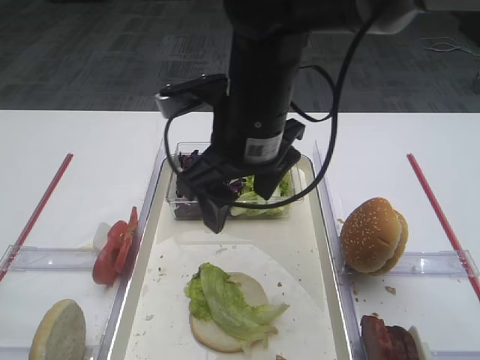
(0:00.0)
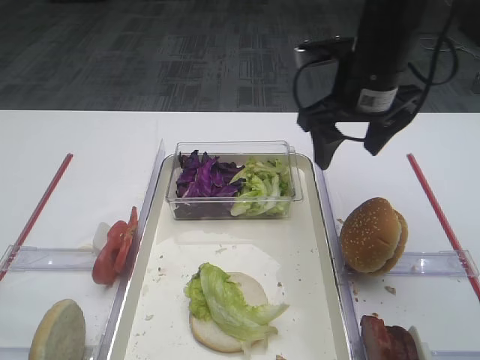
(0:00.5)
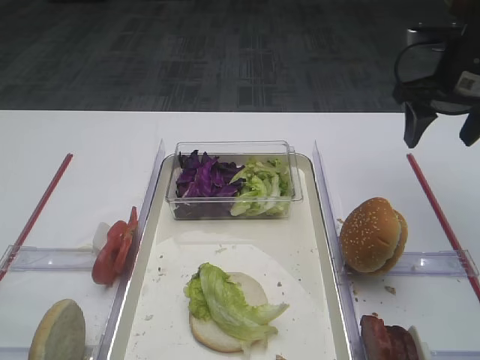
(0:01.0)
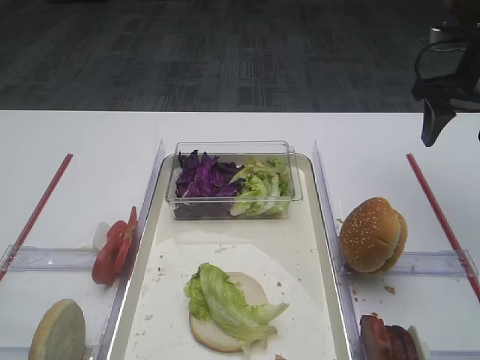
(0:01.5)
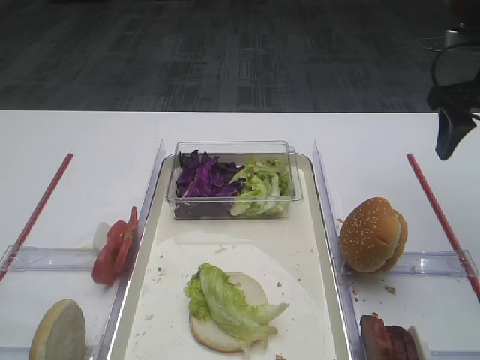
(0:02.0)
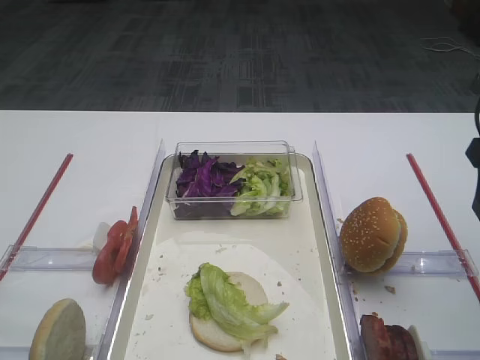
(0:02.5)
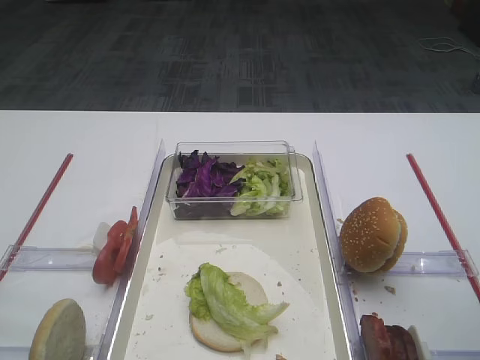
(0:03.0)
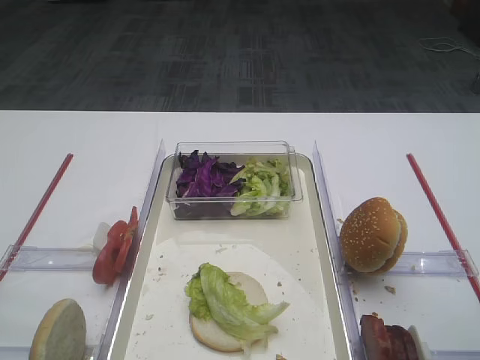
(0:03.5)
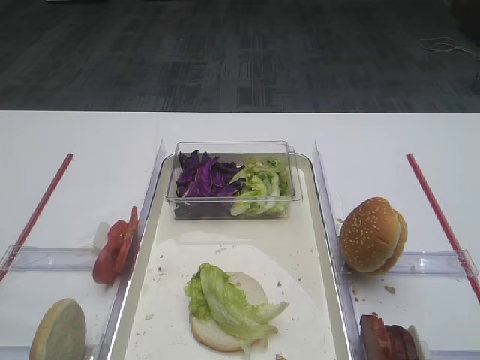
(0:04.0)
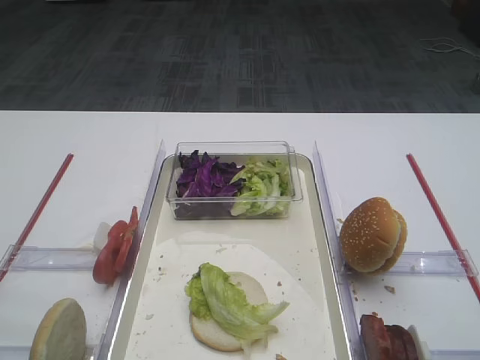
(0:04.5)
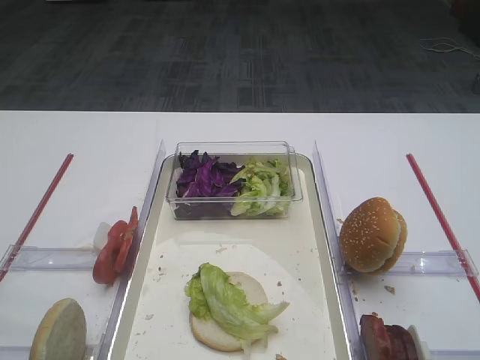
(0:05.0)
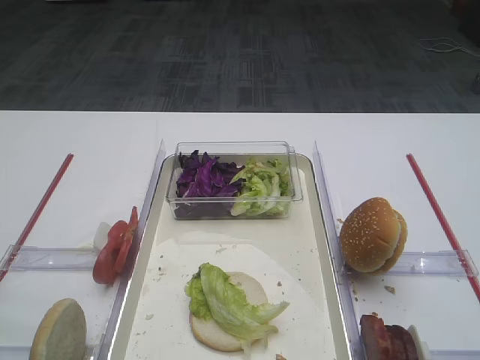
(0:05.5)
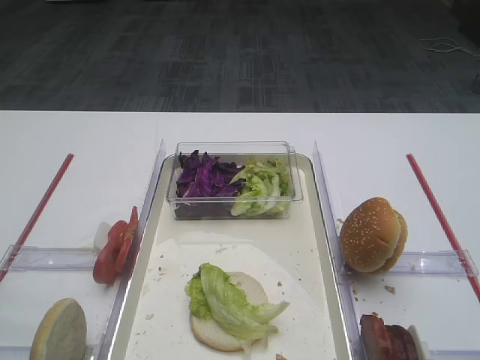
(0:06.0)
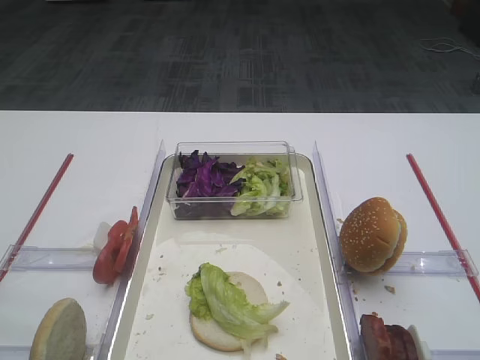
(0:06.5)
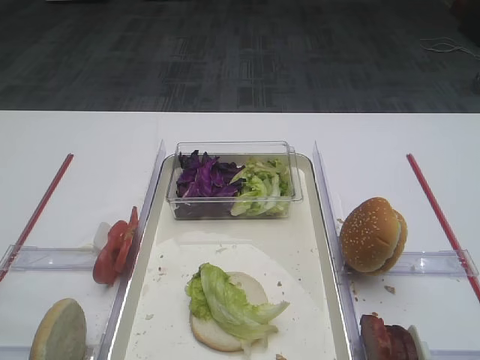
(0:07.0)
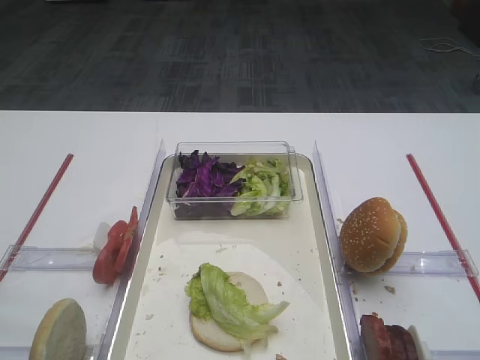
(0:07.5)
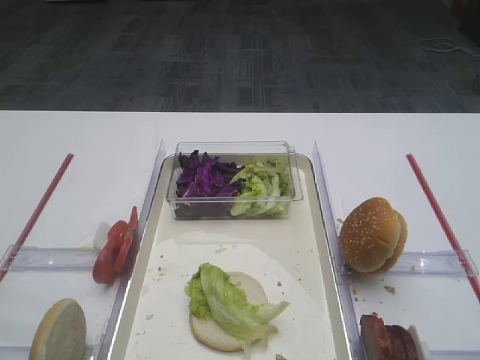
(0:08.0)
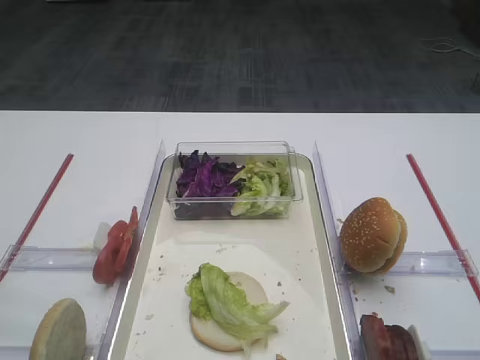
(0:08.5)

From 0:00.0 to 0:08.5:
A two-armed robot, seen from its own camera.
From 0:00.0 to 0:02.0: The right gripper goes about 30 cm to the right.
From 0:02.0 to 0:04.0: The right gripper goes about 30 cm backward.
From 0:06.5 to 0:08.5: The two grippers keep their place.

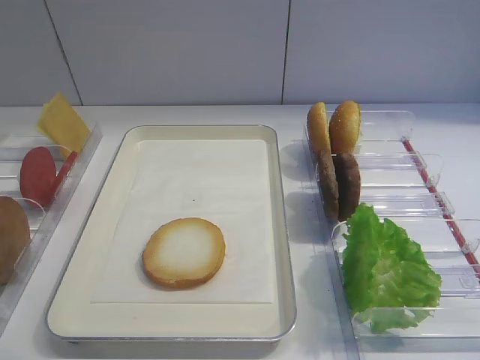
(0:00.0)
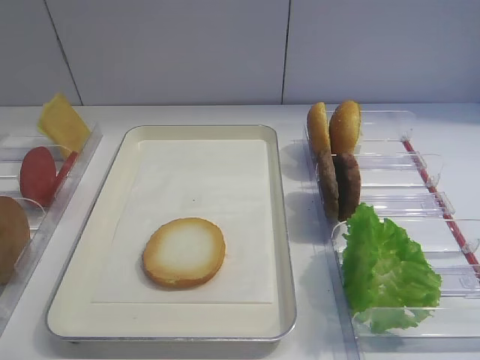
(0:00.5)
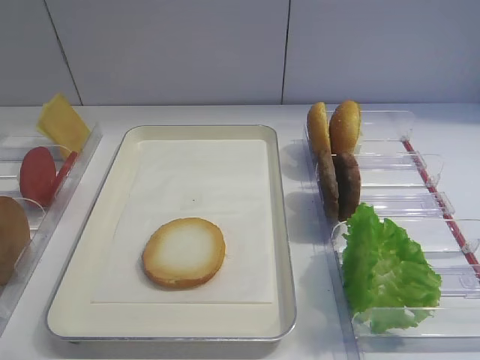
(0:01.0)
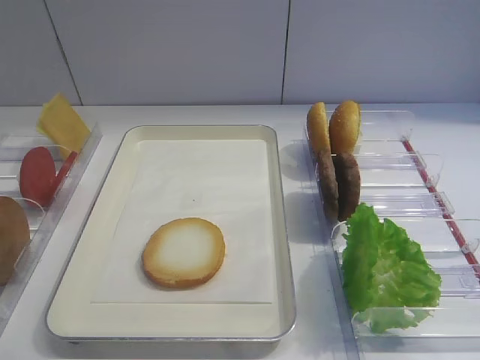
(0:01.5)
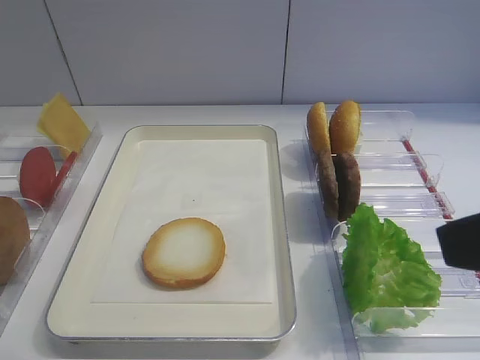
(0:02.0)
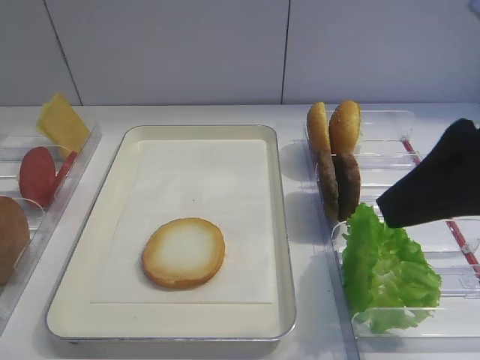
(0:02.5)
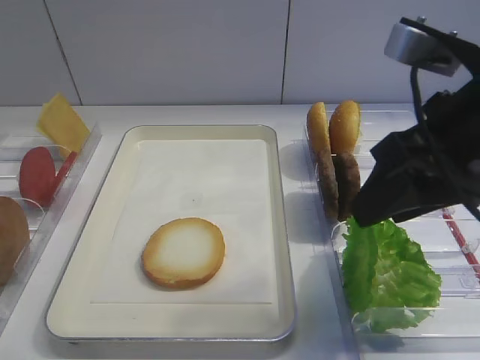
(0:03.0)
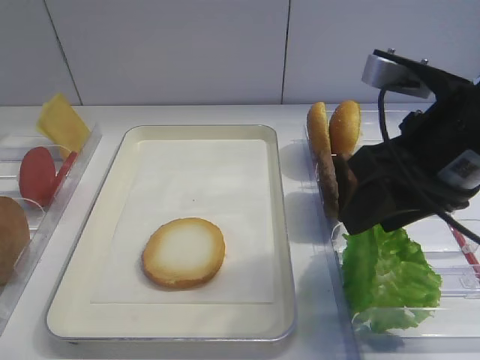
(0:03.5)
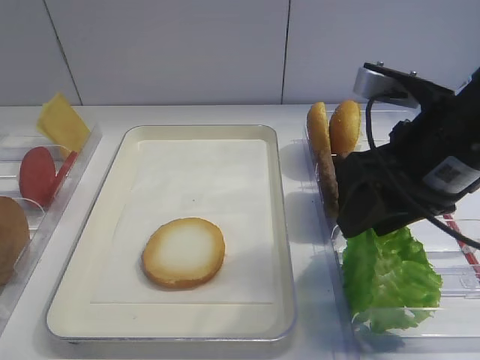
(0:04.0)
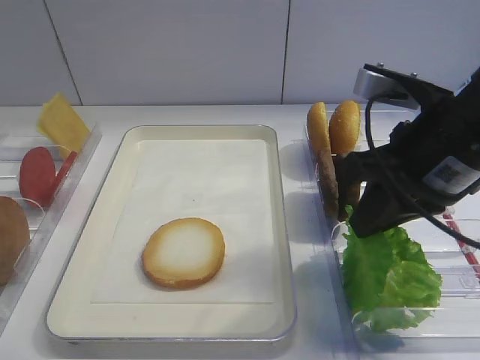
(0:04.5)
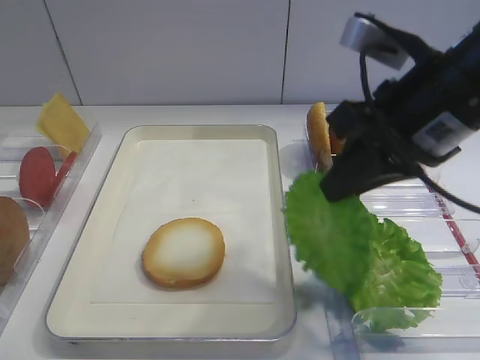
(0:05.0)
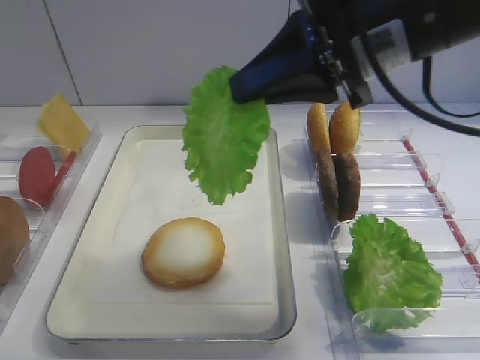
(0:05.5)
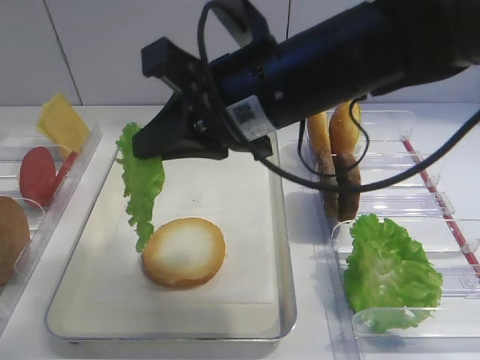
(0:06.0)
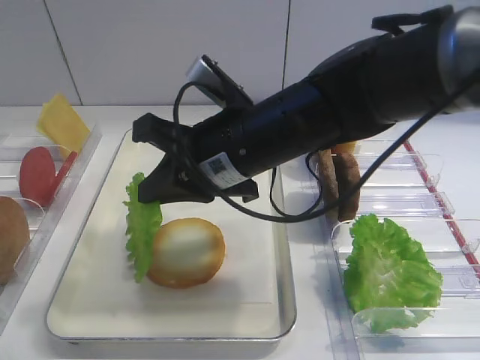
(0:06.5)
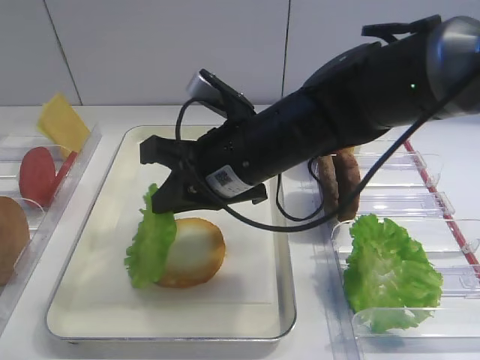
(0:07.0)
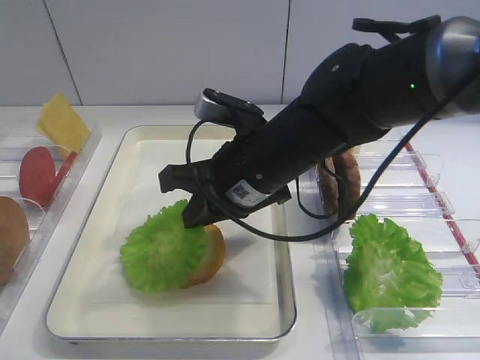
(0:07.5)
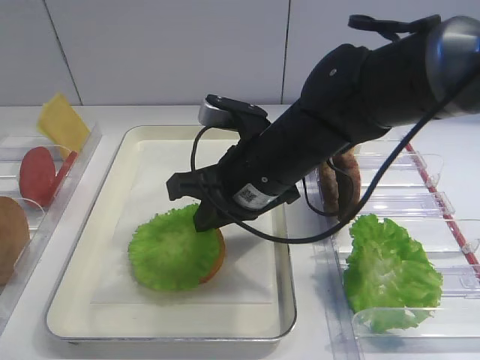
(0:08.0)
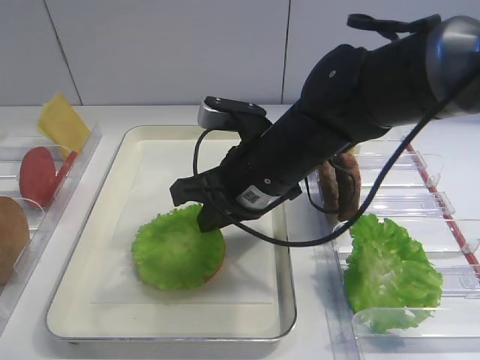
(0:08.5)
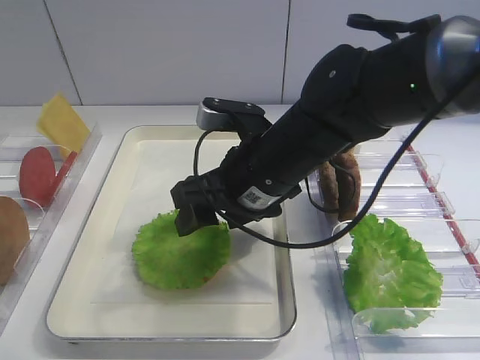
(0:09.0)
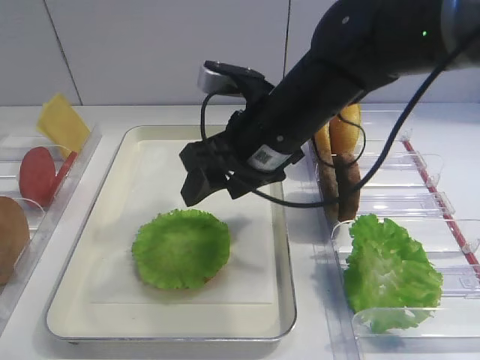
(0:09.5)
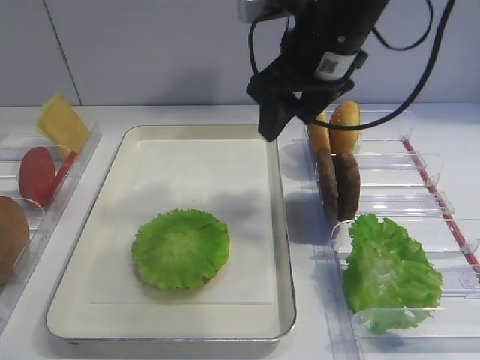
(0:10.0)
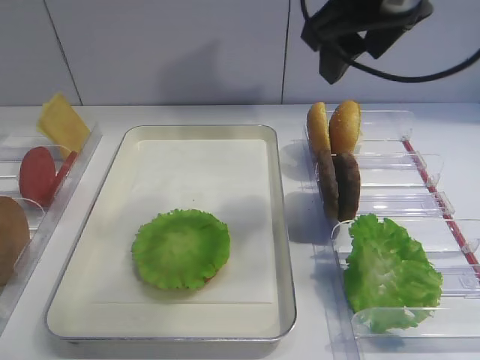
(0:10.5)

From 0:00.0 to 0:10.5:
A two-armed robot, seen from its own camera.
Step, from 0:00.0 to 0:04.5: Pick up the lettuce leaf with the right gripper.
Step, from 0:05.0 to 0:09.0: Place the lettuce leaf on the bread slice with the right gripper.
From 0:02.0 to 0:04.0: The right gripper goes roughly 15 cm forward and downward.
From 0:04.0 to 0:06.5: The right gripper moves to the left, about 15 cm, and closes its fingers.
From 0:08.5 to 0:10.5: The right gripper moves upward and to the right, roughly 20 cm, and opens its fingers.

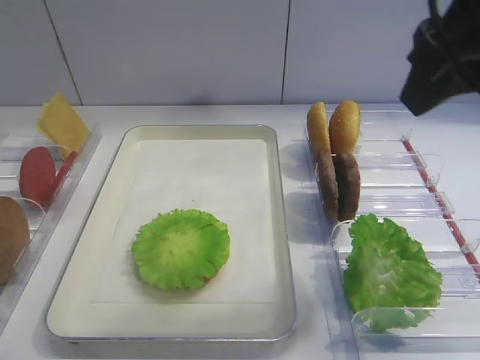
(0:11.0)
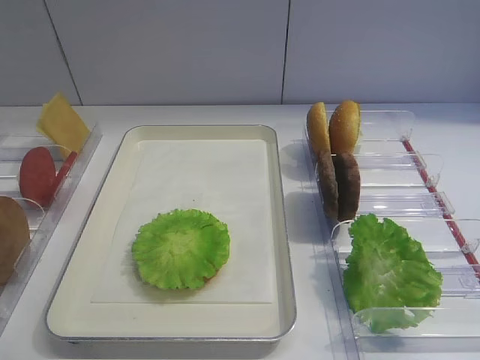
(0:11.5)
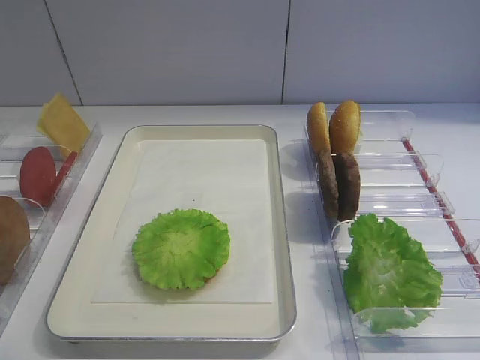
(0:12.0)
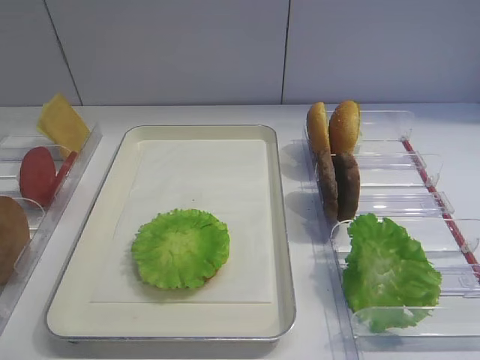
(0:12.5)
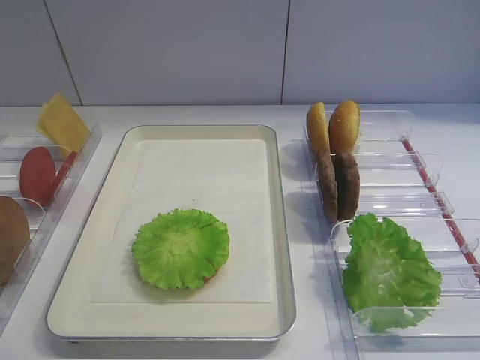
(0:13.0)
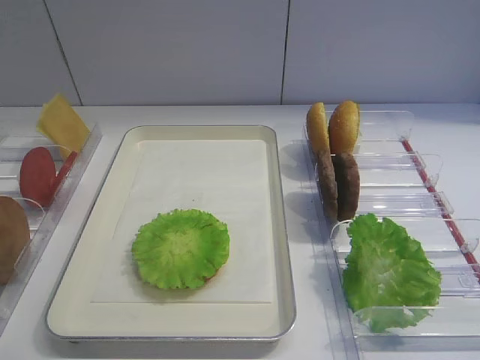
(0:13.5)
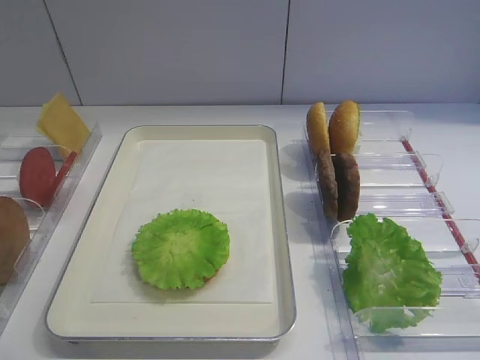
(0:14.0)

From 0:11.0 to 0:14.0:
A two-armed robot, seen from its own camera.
From 0:11.0 to 0:12.5: The right gripper goes about 25 cm backward, downward and to the right.

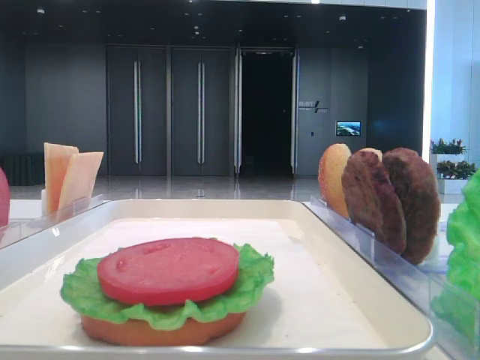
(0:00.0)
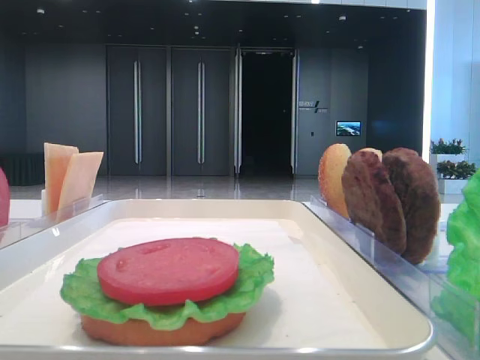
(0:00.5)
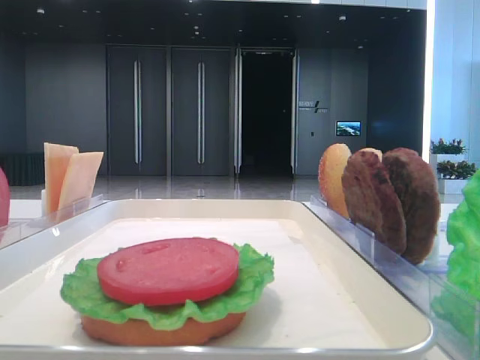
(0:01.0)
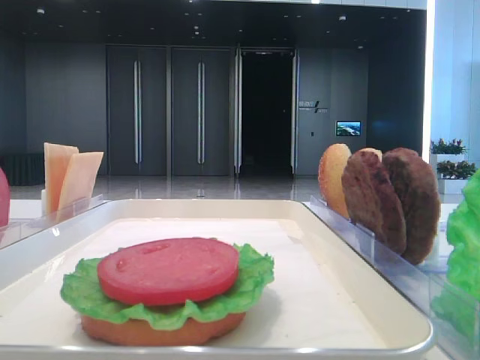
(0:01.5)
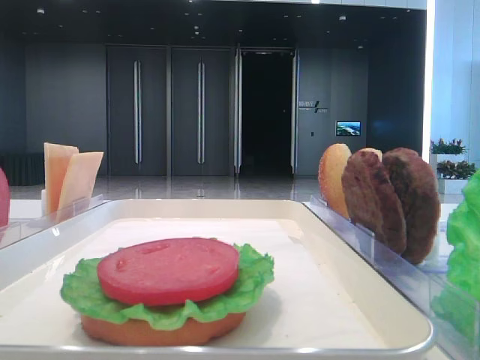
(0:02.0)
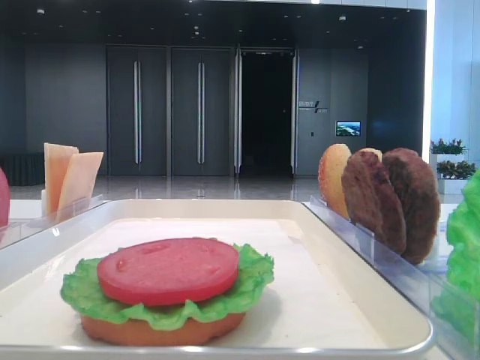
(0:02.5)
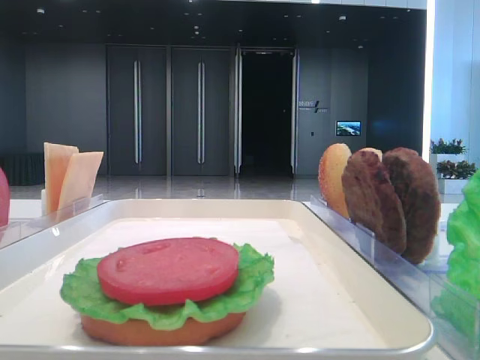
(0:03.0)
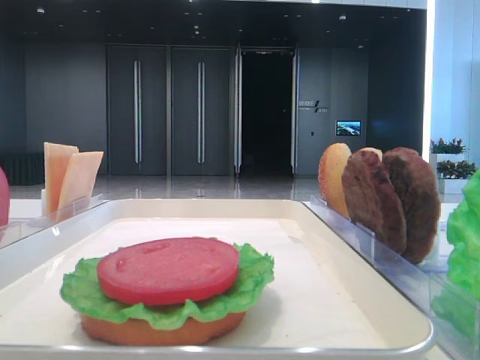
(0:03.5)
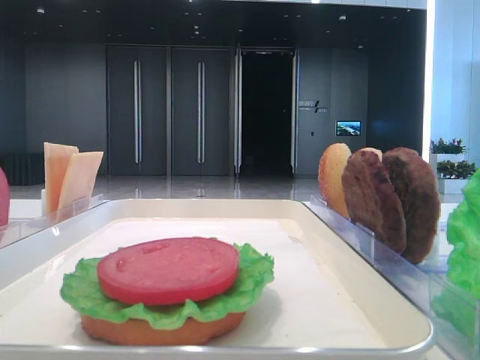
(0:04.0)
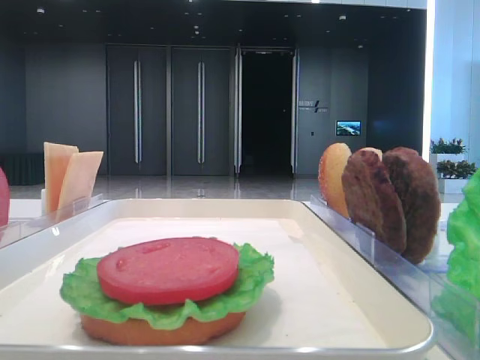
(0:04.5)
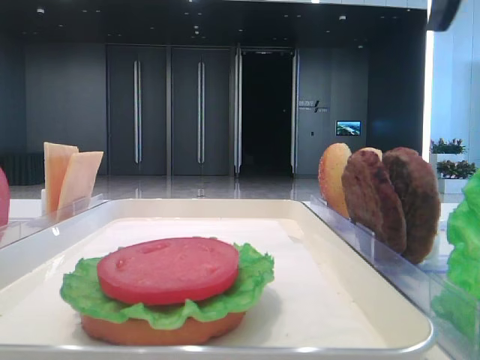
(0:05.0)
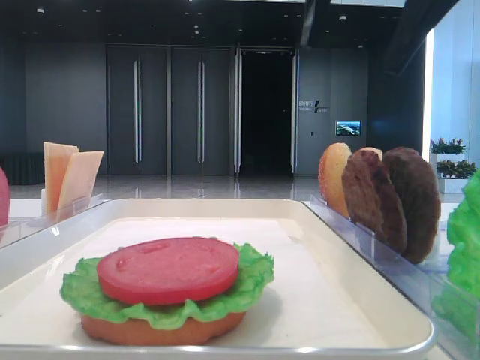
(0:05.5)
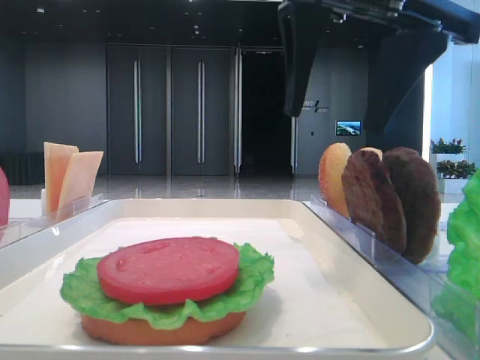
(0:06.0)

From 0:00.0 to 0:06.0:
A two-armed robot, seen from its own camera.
From 0:04.0 to 0:06.0: The right gripper shifts about 20 cm to the left.
